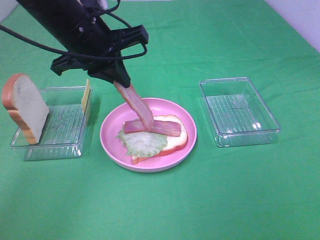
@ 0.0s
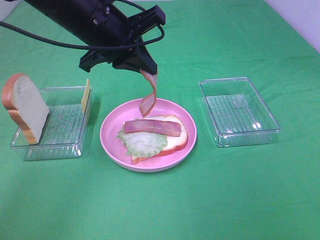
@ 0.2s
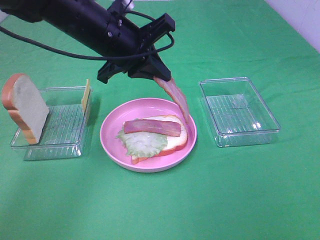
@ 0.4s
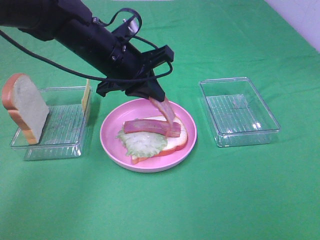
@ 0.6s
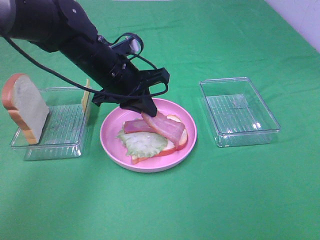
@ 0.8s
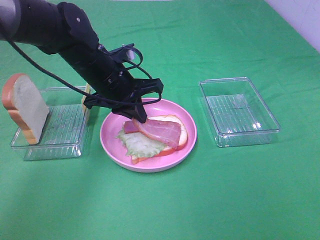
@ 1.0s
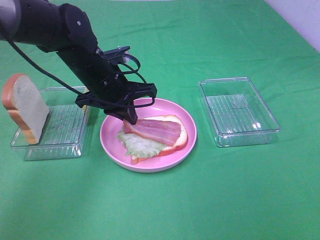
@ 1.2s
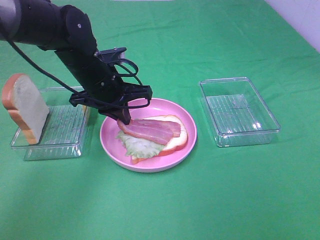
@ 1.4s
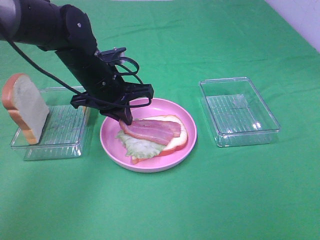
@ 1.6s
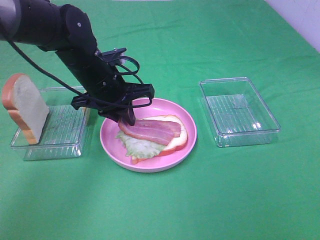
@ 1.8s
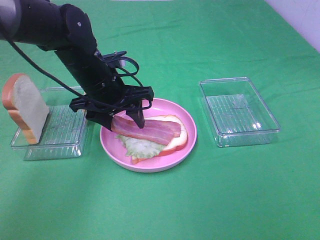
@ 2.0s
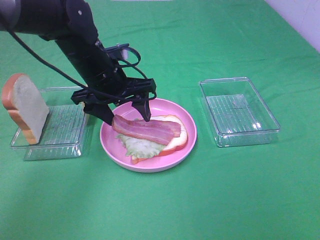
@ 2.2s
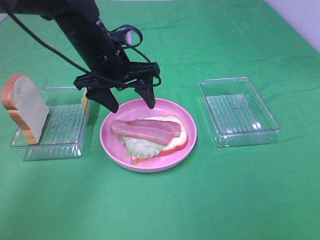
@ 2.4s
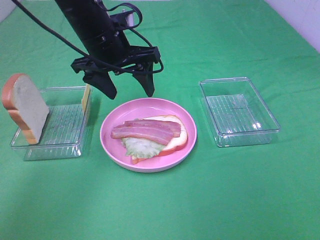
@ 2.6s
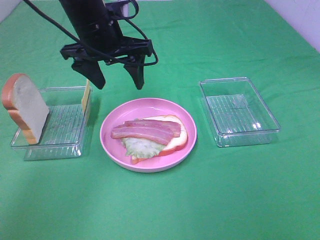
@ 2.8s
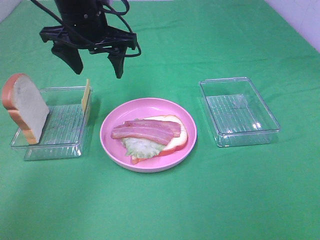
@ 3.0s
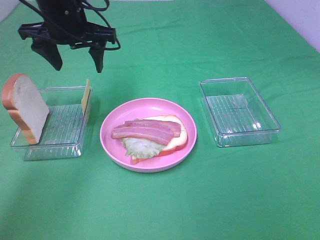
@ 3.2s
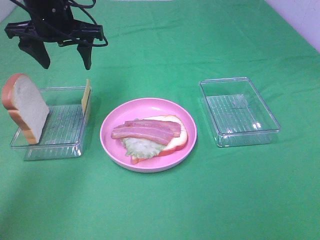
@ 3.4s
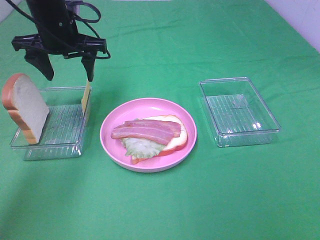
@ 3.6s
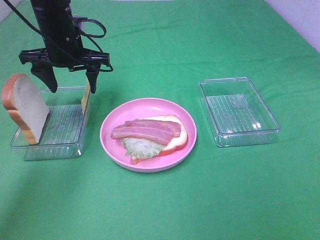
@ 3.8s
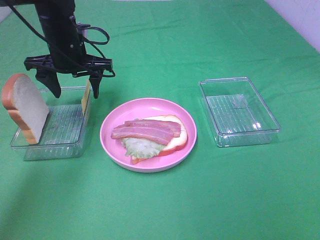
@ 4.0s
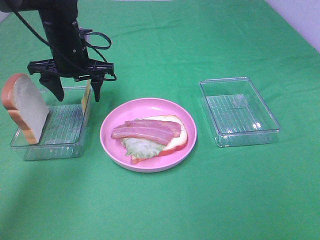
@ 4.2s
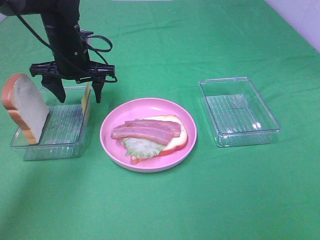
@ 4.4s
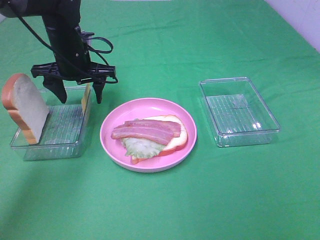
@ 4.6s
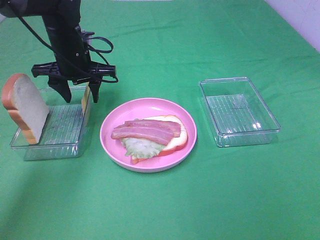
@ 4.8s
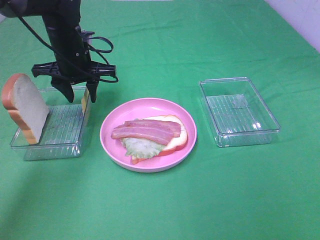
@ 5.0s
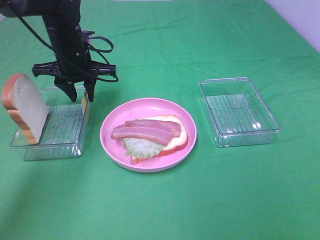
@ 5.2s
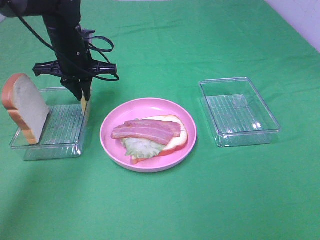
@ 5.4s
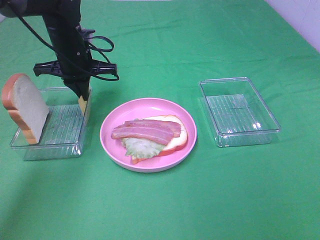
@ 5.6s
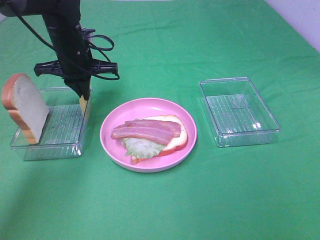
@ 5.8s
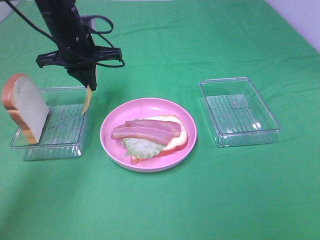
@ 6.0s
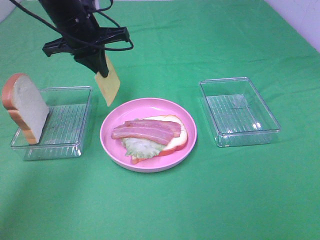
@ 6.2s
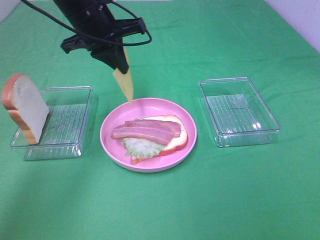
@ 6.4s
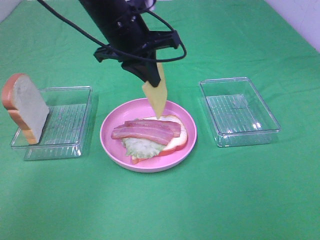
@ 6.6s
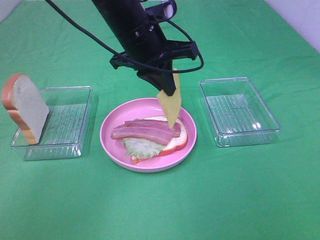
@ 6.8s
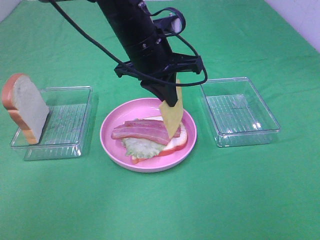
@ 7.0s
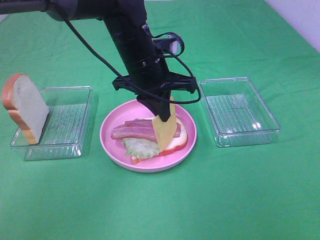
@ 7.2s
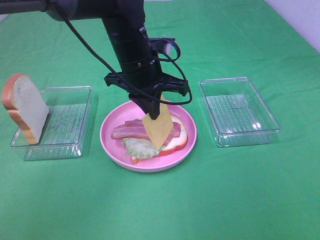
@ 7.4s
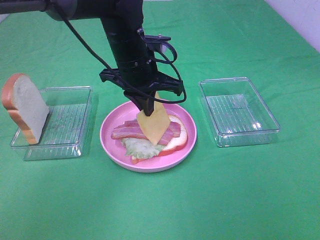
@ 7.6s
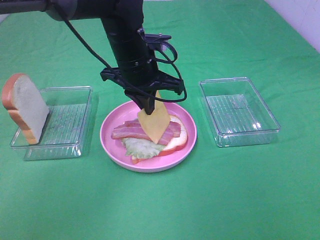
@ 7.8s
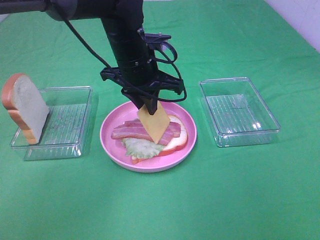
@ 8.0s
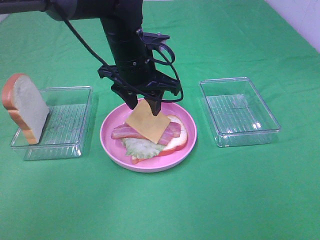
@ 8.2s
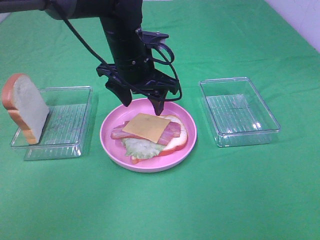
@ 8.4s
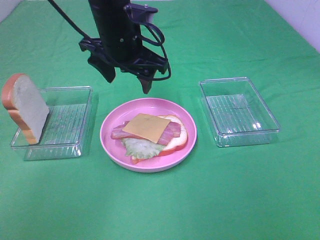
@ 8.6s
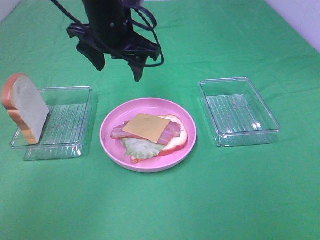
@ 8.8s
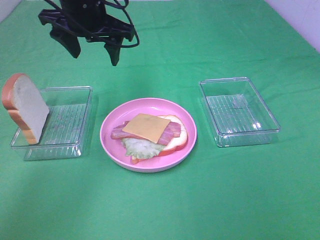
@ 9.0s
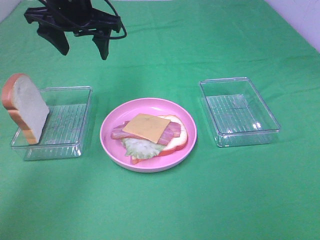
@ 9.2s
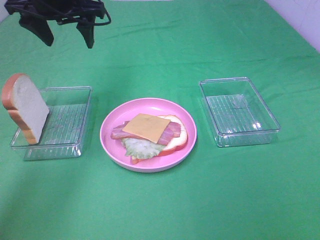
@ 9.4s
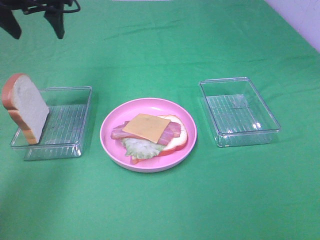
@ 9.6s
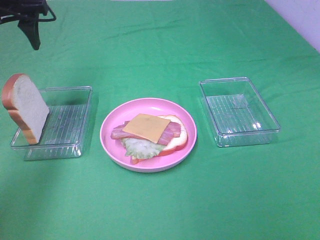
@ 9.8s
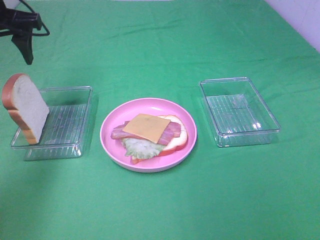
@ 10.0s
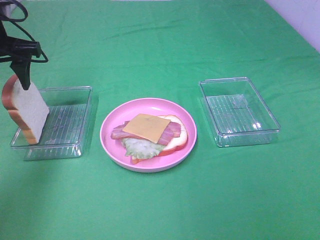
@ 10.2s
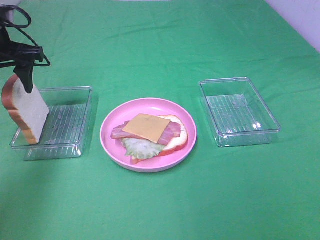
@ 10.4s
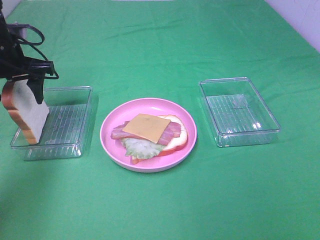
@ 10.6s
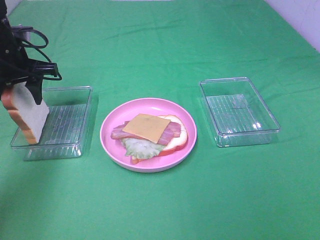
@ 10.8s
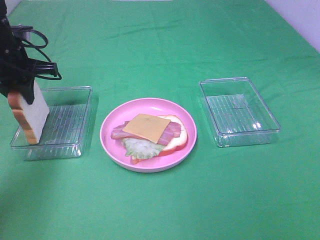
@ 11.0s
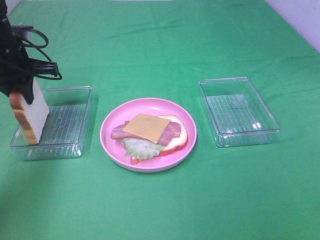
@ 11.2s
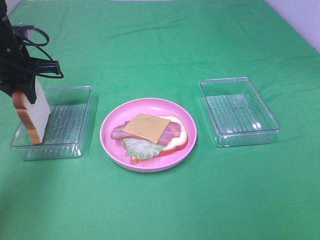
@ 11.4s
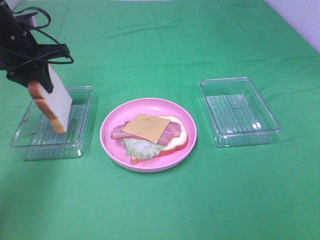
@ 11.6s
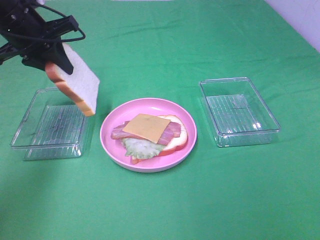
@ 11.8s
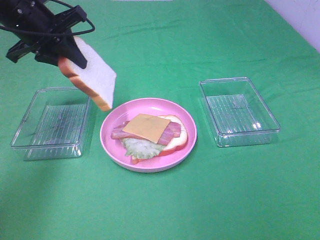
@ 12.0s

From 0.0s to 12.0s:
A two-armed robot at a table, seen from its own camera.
Task of the whole recording: Make sandwiches.
Step, from 0.0s to 2.4s: Left hand:place bacon on bacon.
Step, from 2.6s to 5.6s: Left hand:grab the cheese slice.
Step, from 5.8s to 8.4s: Left hand:place the cheese slice on top of the bacon.
Step, from 8.6s to 11.4s: Left hand:grab the bread slice.
From 0.0s to 1.6s: The left gripper travels downward by about 10 cm.
From 1.6s to 3.0s: The left gripper is displaced upward by about 10 cm, and opens up.
From 3.0s to 4.4s: The left gripper goes some 10 cm downward.
From 4.4s to 6.0s: The left gripper closes up.
From 6.0s to 7.6s: The left gripper is displaced to the right and backward by approximately 15 cm.
From 7.6s to 9.0s: The left gripper is displaced to the left and upward by roughly 10 cm, and opens up.
From 9.0s to 10.4s: The left gripper is displaced to the left by some 15 cm.
From 10.4s to 12.0s: The left gripper travels to the right by about 5 cm, and closes.

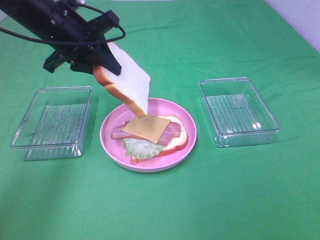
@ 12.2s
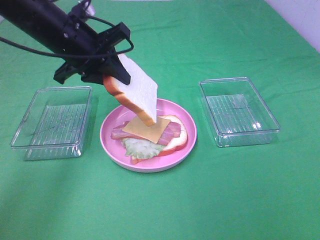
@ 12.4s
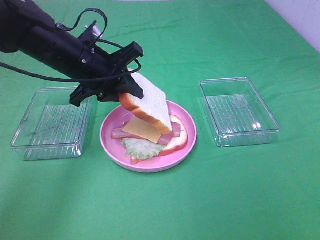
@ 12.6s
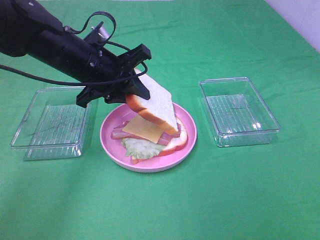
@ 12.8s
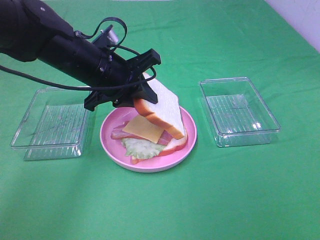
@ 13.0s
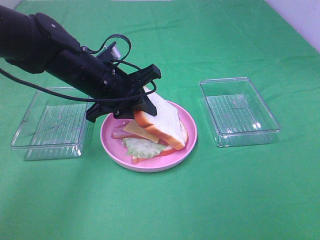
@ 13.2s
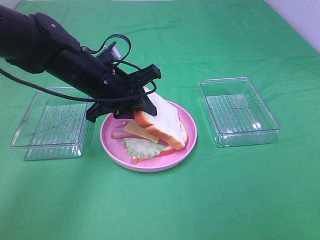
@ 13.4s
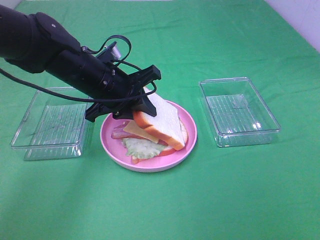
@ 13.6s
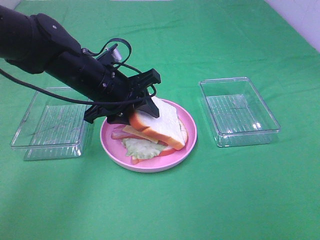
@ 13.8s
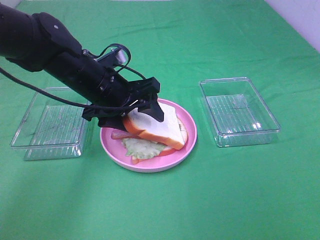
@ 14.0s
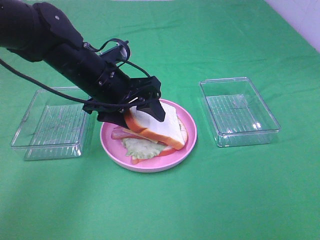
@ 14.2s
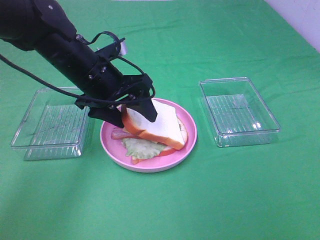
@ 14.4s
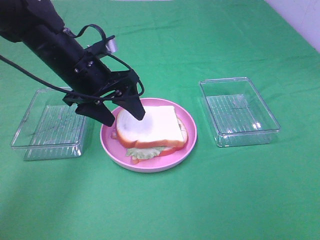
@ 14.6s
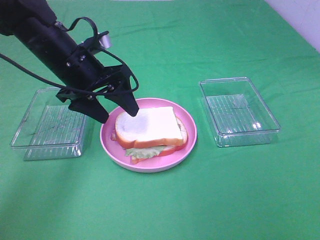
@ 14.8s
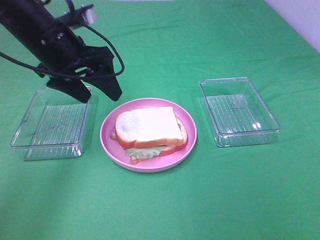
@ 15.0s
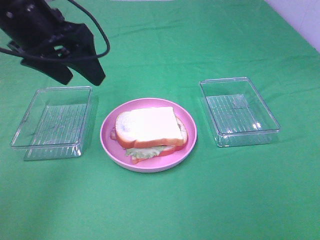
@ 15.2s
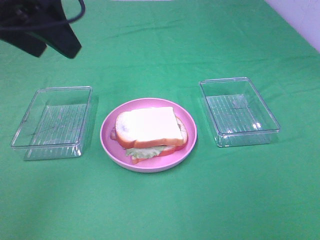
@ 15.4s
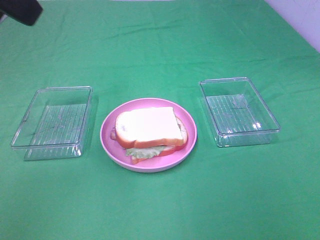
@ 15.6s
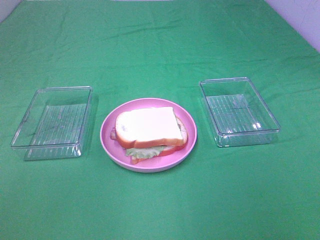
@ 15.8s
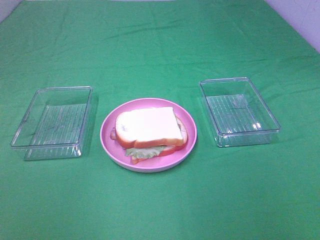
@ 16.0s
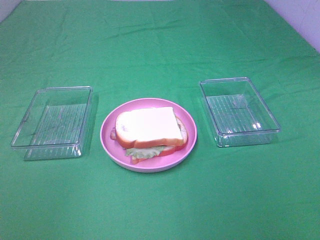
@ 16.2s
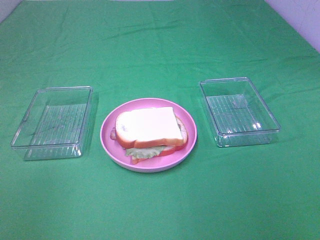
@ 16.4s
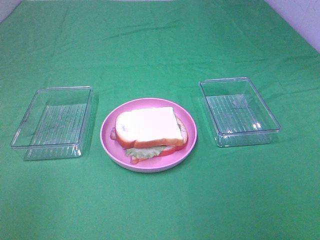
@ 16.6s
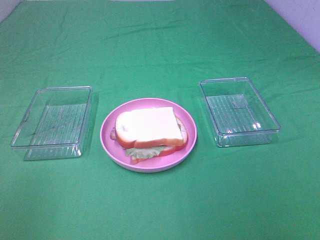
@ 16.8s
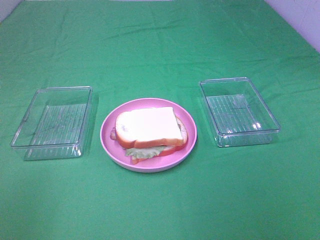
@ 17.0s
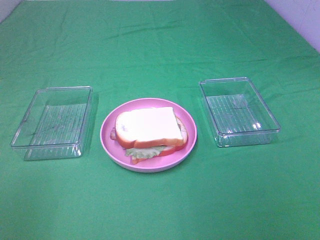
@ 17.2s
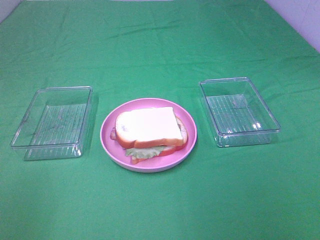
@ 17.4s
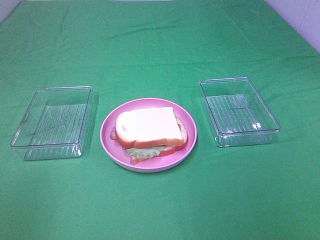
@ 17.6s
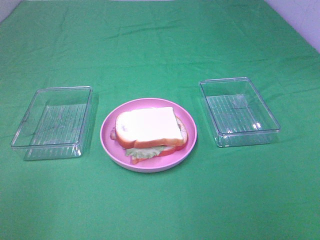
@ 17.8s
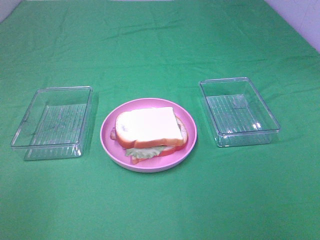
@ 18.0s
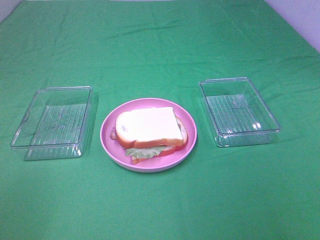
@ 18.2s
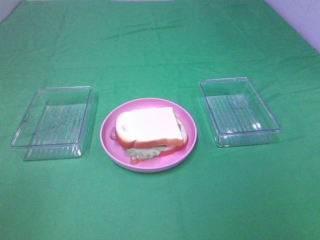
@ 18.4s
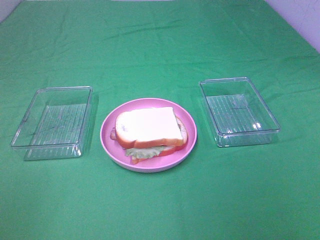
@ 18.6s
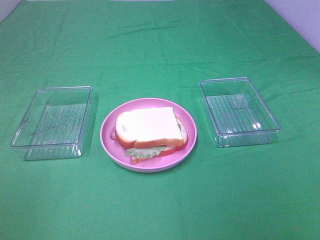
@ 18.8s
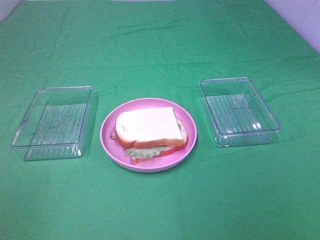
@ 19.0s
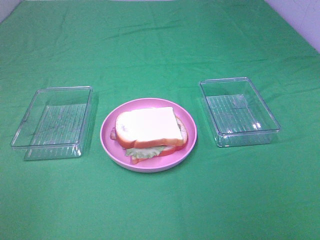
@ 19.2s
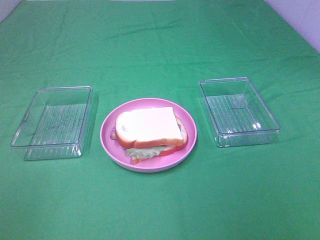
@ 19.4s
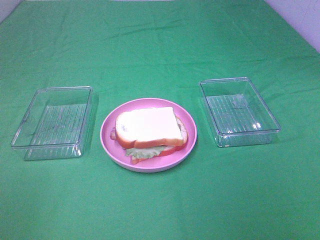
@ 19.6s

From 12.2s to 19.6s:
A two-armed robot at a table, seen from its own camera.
Task of the whole recording: Make sandwiches.
Step, from 12.2s to 14.8s: Left hand:place the bread slice on the cheese slice.
From 12.2s to 13.6s: The left gripper goes about 10 cm downward and to the right.
From 13.6s to 15.2s: The left gripper shifts roughly 15 cm upward and to the left, and opens.
From 15.2s to 16.6s: The left gripper heads backward, covering approximately 30 cm.
